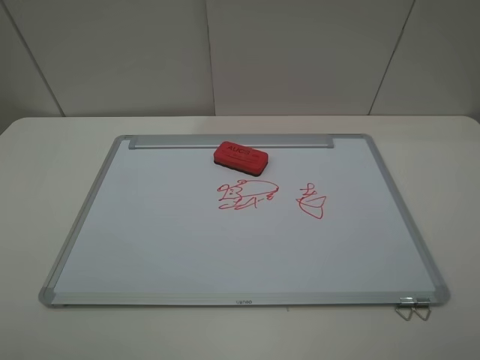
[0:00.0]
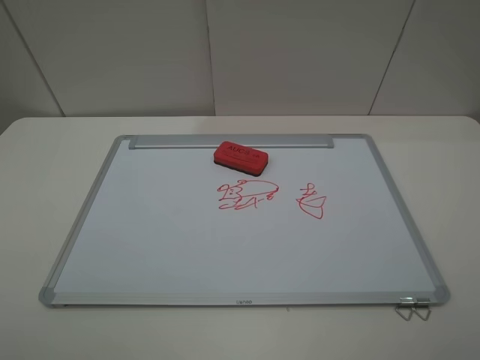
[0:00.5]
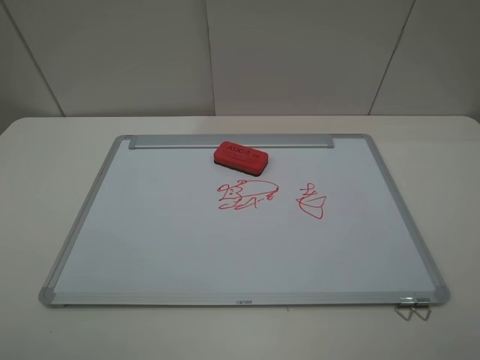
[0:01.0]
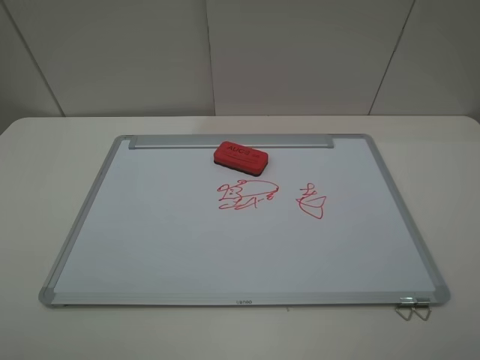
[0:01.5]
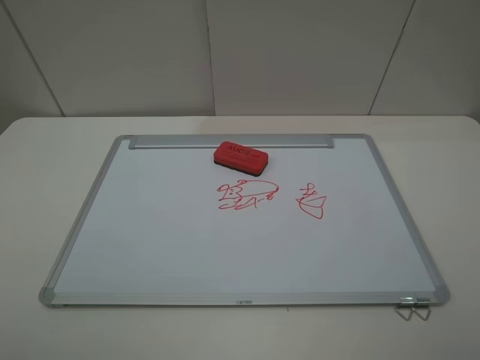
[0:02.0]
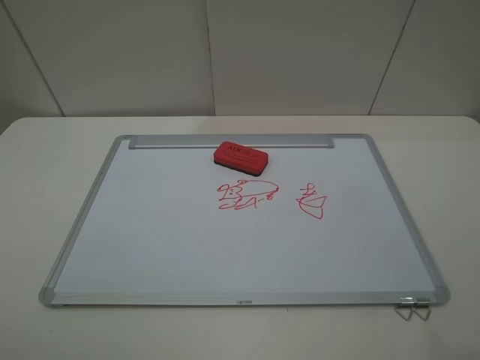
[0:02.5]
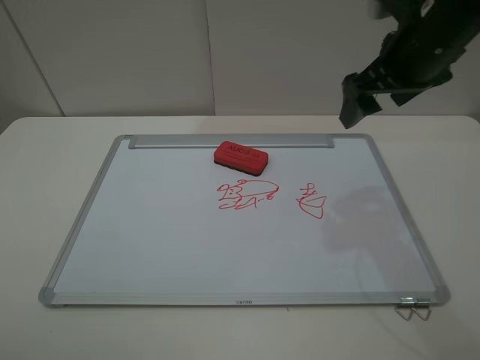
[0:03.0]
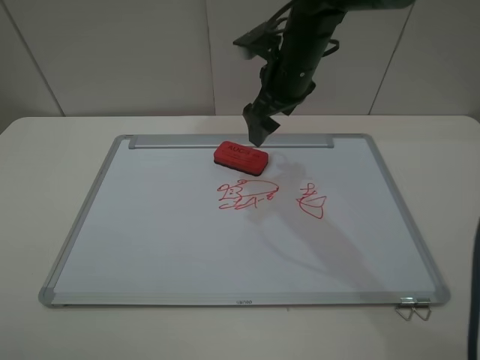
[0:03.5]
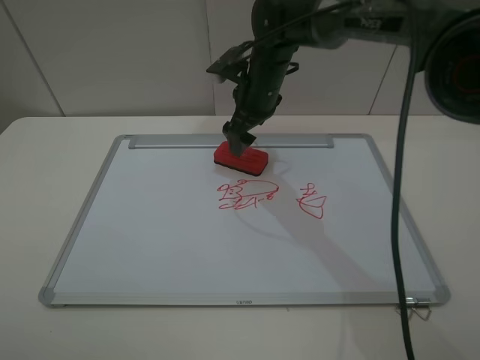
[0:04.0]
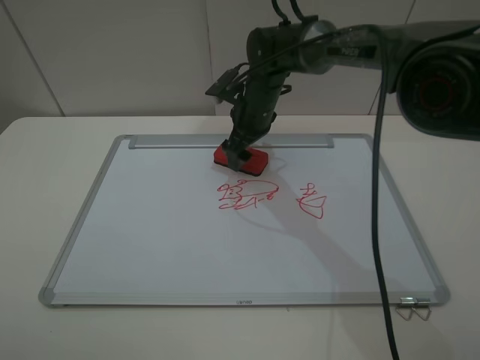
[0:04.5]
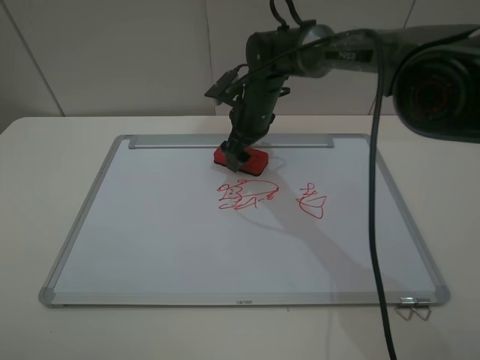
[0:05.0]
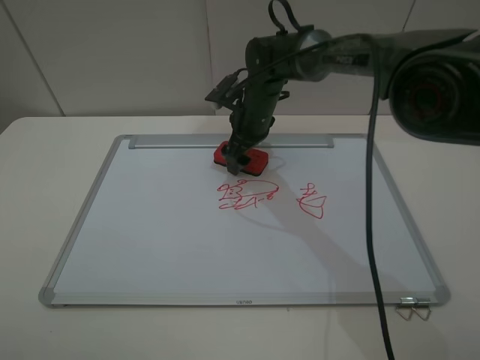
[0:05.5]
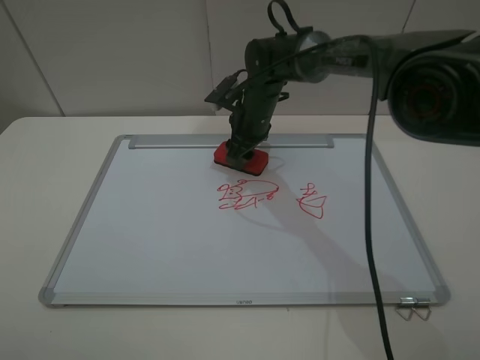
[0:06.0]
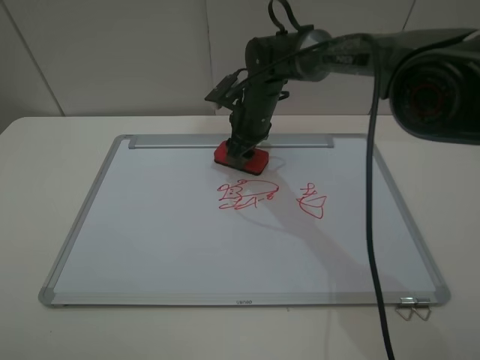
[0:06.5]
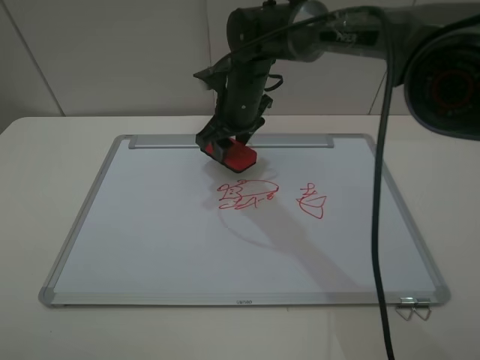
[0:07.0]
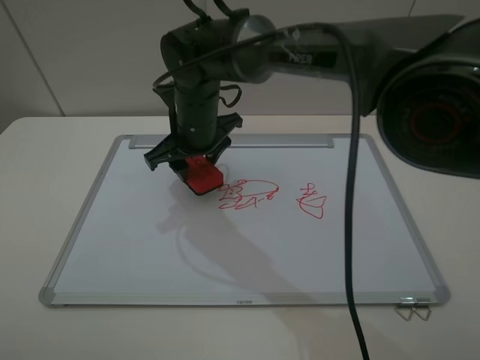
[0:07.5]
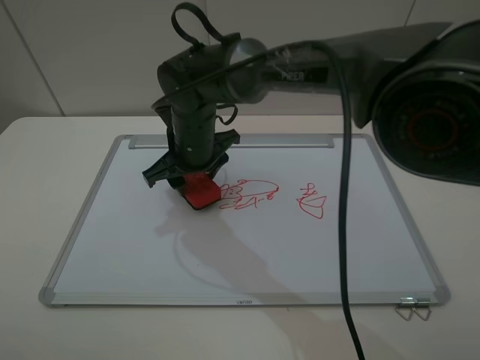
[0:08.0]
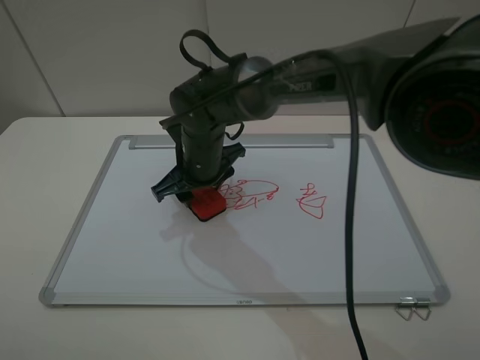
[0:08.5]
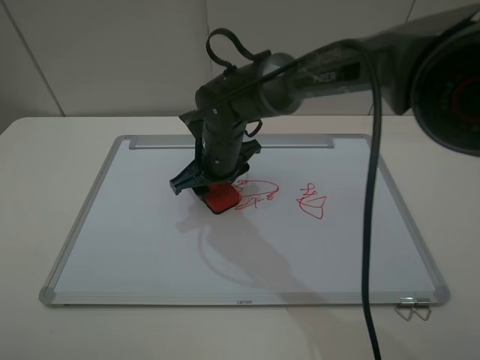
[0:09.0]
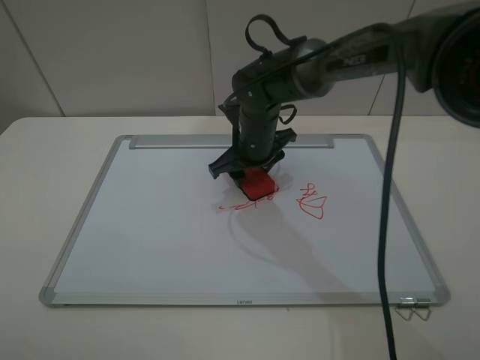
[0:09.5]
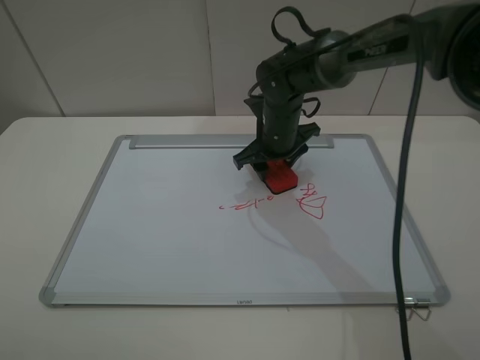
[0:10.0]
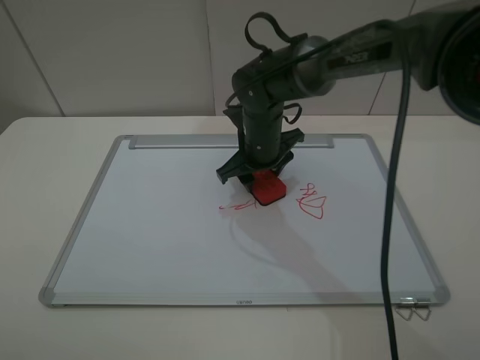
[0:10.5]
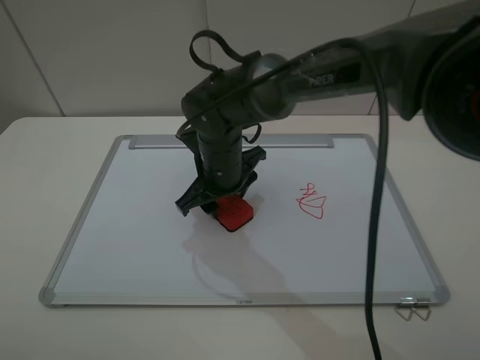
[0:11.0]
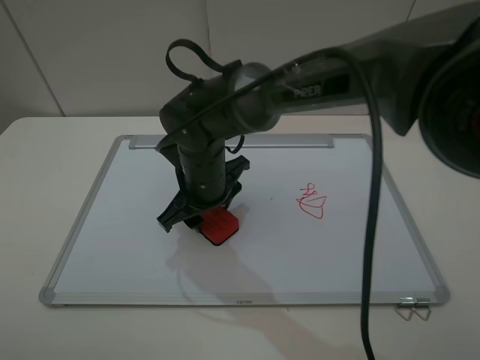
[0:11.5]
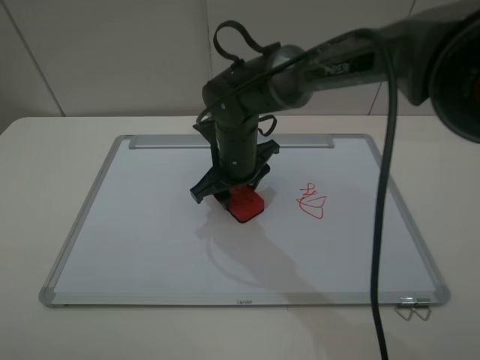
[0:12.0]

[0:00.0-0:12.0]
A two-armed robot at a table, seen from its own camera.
Step, 0:00.0 to 0:05.5: Grasp the eraser with the right gripper.
0:00.0 to 0:02.0: Both grippers stay about where they are.
0:02.0 to 0:04.0: The right gripper heads forward and to the left, covering roughly 50 cm.
0:04.0 to 0:06.0: The right gripper closes.
0:06.0 to 0:08.0: The right gripper shifts about 15 cm backward and to the left.
0:08.0 to 0:10.0: The right gripper moves to the right and forward, some 15 cm.
0:10.0 to 0:12.0: The right gripper is displaced to the left and backward by roughly 10 cm.

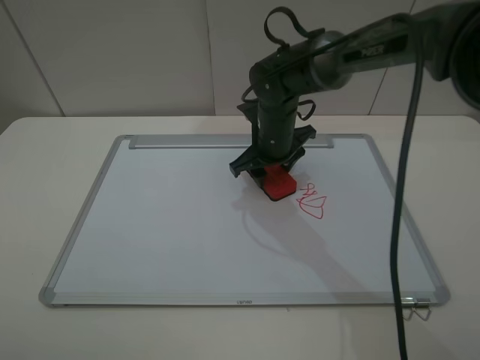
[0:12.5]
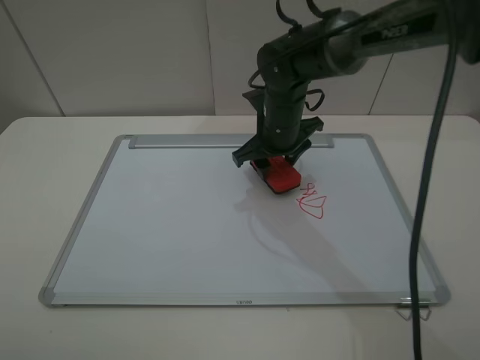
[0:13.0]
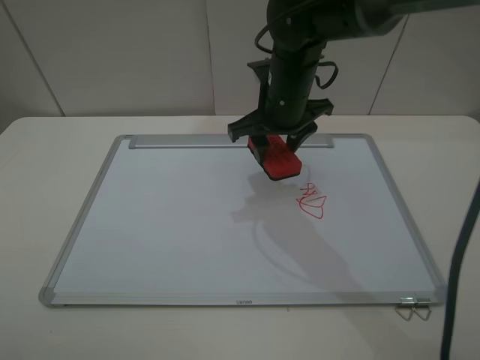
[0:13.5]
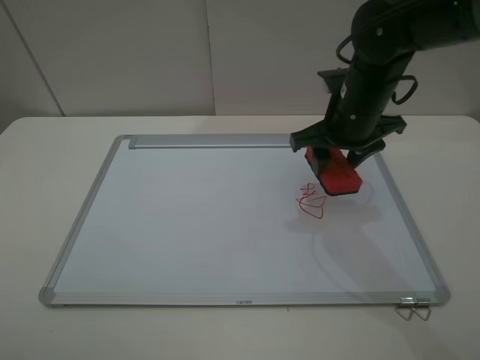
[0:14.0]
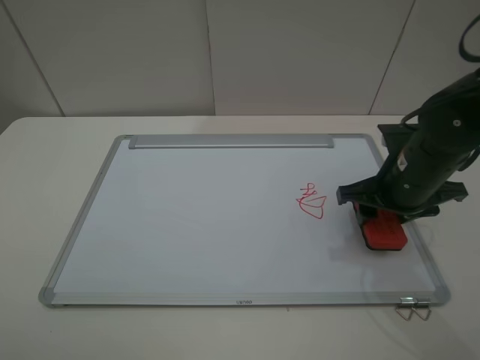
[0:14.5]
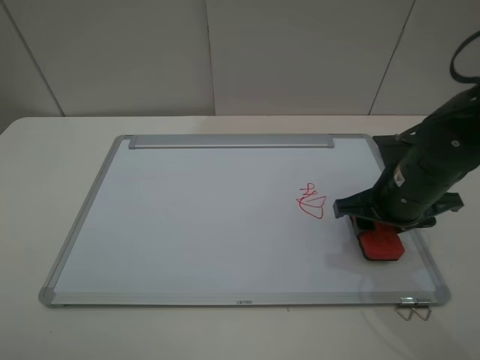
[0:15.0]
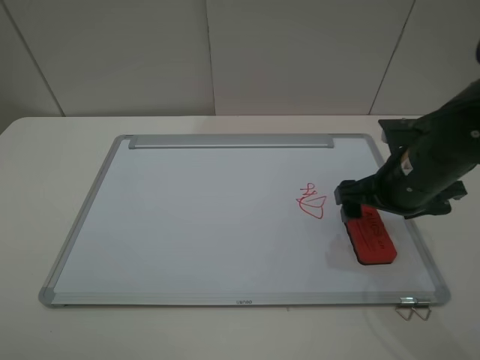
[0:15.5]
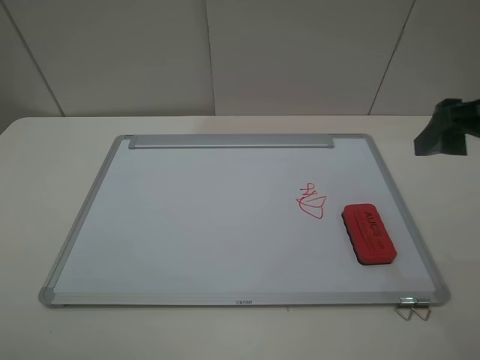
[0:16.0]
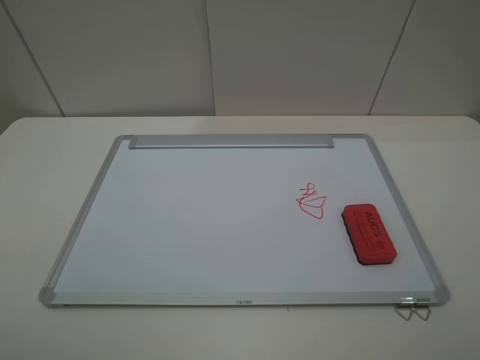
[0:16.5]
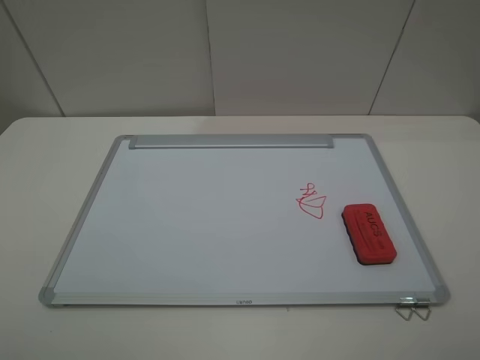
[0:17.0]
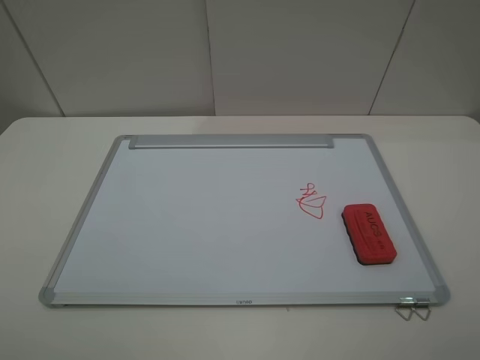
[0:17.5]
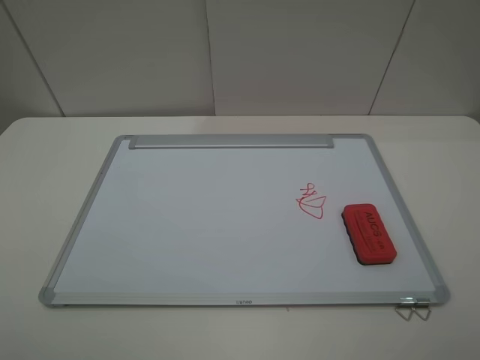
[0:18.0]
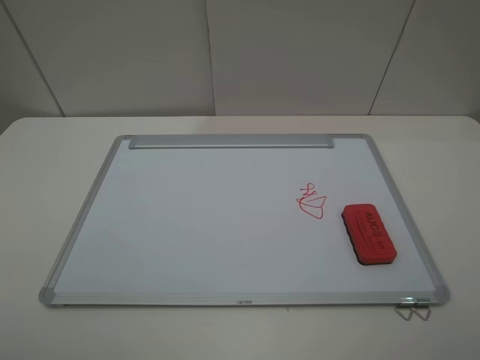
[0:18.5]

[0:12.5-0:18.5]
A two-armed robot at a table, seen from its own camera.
Step, 0:13.5 to 0:15.0: Place the eraser with the right gripper.
0:12.5 to 0:14.5: The right gripper travels to the right and backward by approximately 20 cm.
0:14.5 to 0:16.5: The right gripper travels backward and upward by approximately 30 cm, and opens up.
